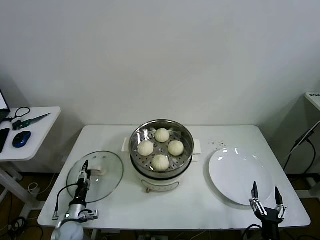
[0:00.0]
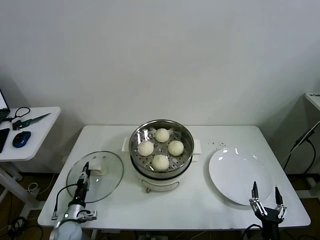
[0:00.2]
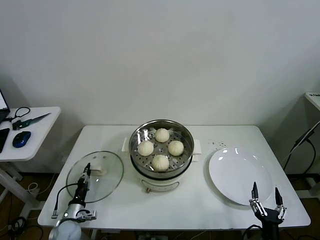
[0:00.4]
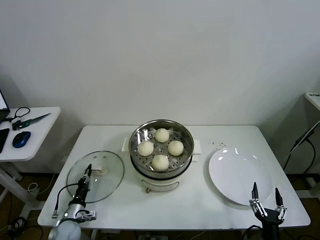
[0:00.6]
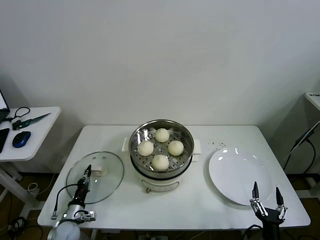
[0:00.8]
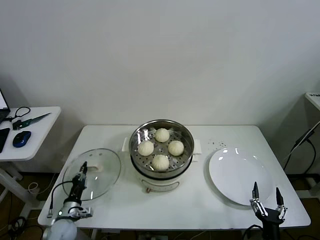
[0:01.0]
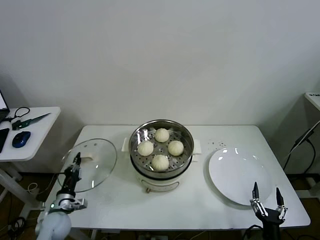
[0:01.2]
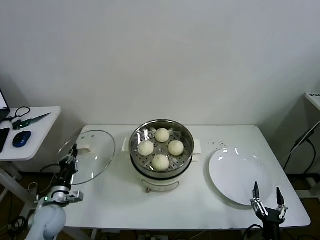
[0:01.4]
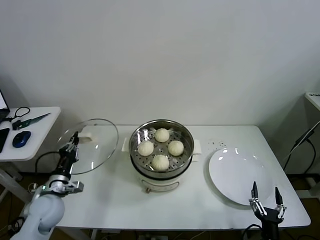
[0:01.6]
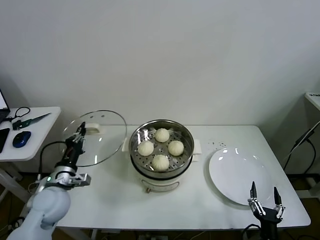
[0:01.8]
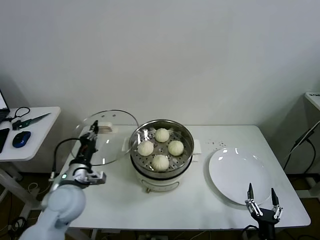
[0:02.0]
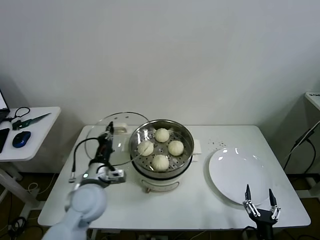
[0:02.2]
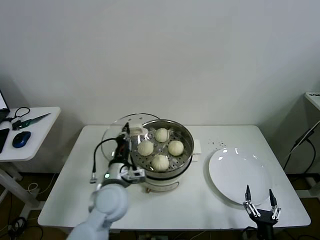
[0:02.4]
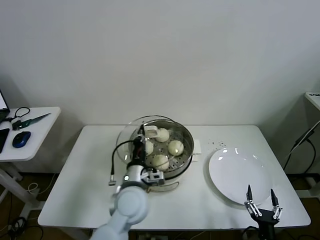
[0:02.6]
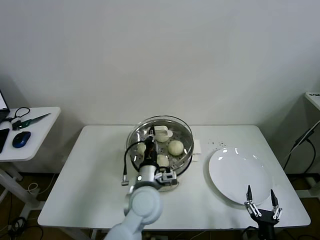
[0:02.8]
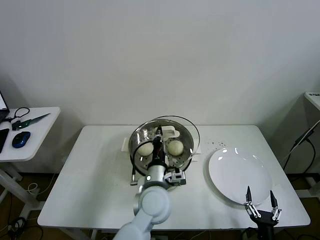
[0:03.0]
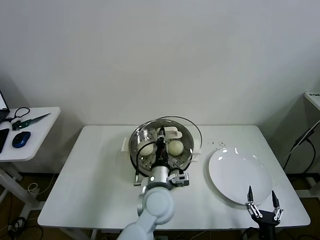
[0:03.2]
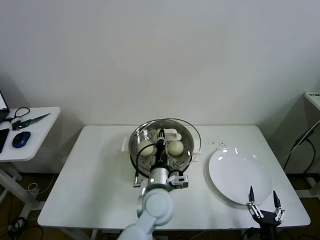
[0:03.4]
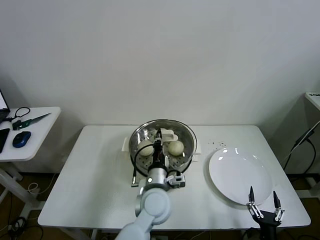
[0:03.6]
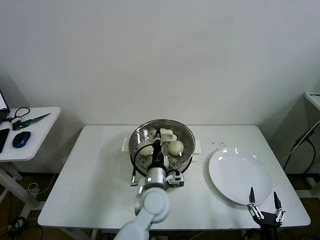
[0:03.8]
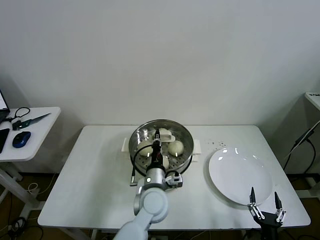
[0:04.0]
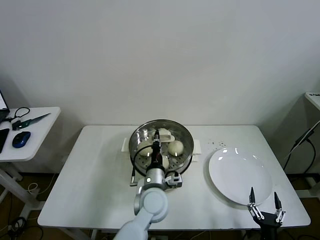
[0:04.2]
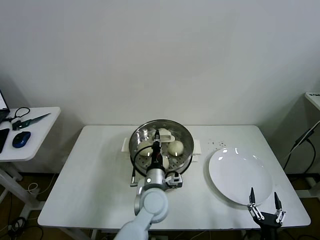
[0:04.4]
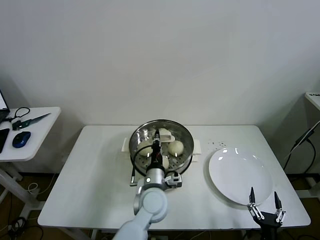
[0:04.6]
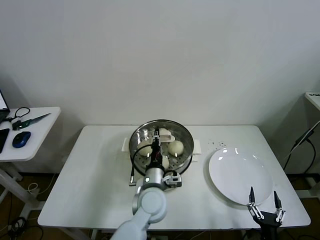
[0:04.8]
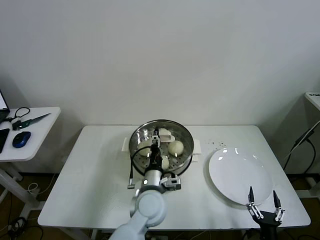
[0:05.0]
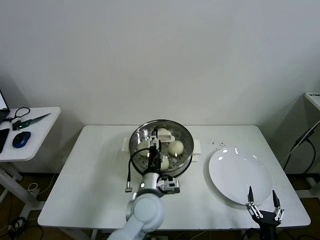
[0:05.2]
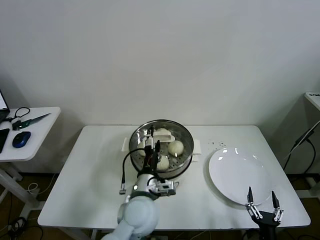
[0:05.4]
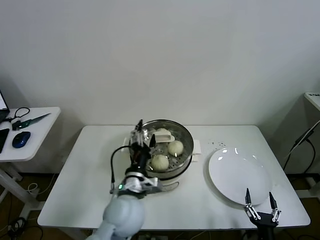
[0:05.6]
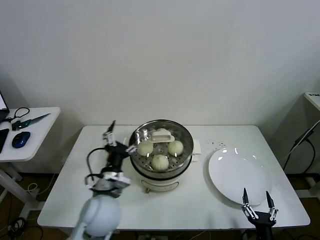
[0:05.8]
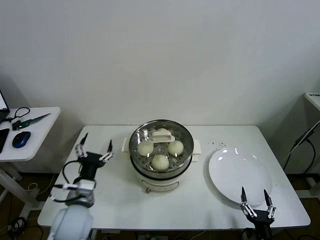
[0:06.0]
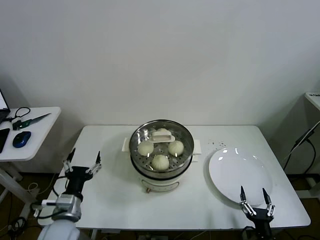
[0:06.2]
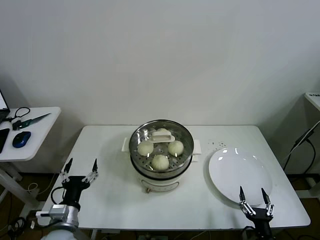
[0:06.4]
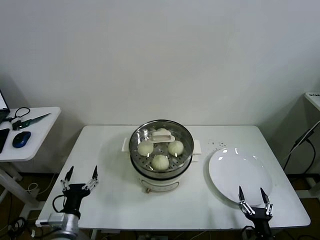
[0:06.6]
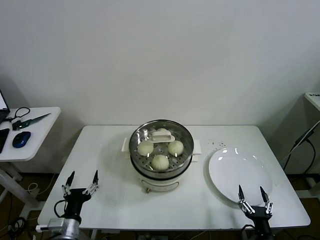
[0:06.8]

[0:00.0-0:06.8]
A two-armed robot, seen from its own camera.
Task of the whole recording: take steamed baozi put them in steamer then cover it.
Step, 0.8 to 5.4 s: Place the pot lid on the steamer with left gripper.
0.0 to 1.4 s: The left gripper moves upward, approximately 10 cm, and closes its fingers.
1.4 to 2.8 s: The left gripper shifts about 35 cm to the right and upward.
2.8 to 4.0 s: The left gripper changes place by roughly 5 cm.
4.0 to 5.4 s: The left gripper ends up roughly 5 cm from where it was, and opens its fingers.
5.4 to 6.8 s: The left gripper shifts approximately 25 cm to the left and backward.

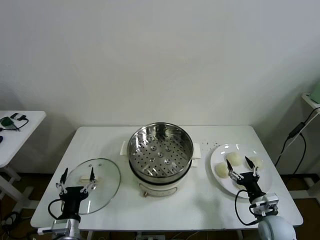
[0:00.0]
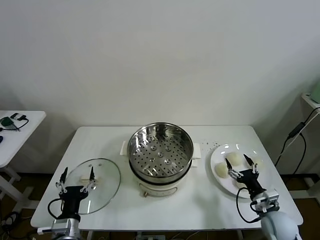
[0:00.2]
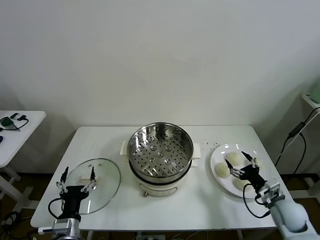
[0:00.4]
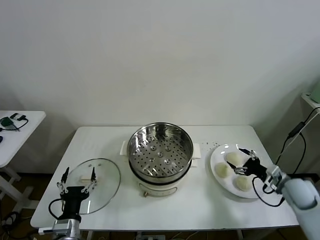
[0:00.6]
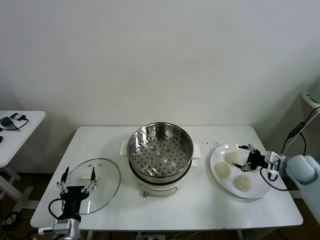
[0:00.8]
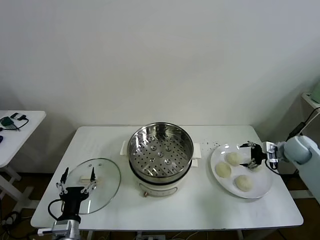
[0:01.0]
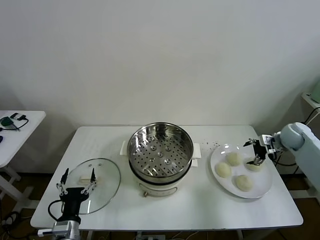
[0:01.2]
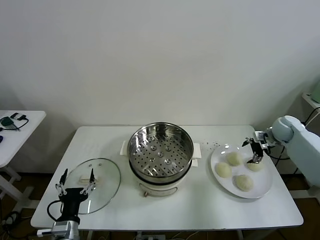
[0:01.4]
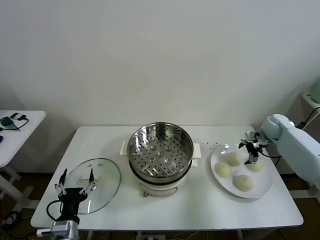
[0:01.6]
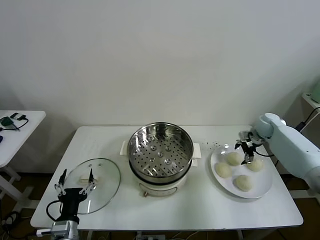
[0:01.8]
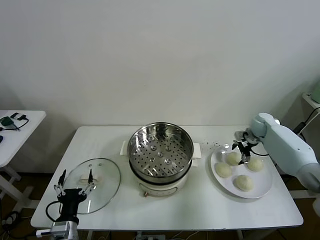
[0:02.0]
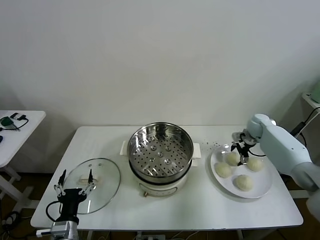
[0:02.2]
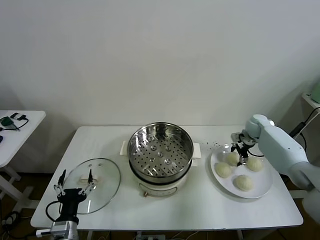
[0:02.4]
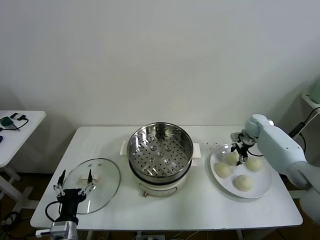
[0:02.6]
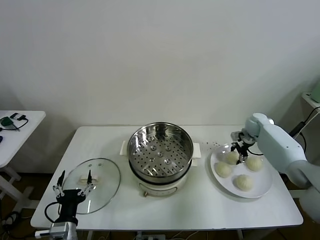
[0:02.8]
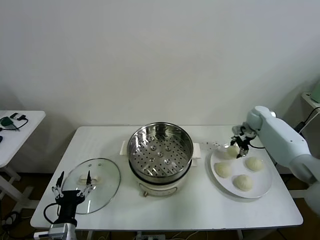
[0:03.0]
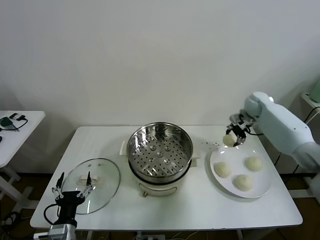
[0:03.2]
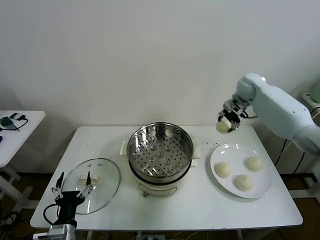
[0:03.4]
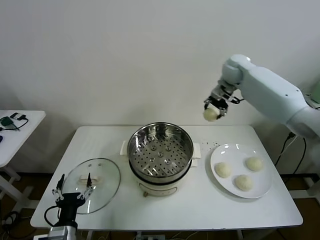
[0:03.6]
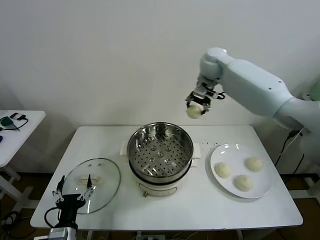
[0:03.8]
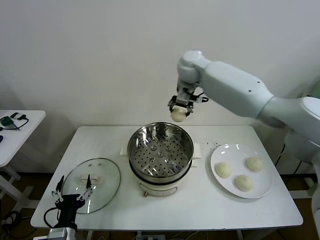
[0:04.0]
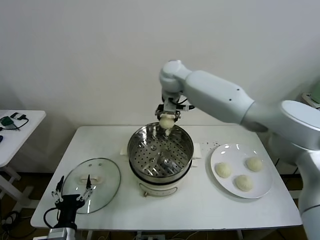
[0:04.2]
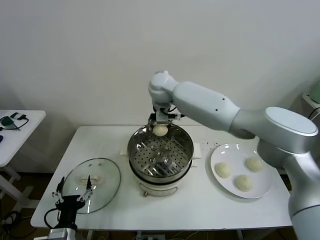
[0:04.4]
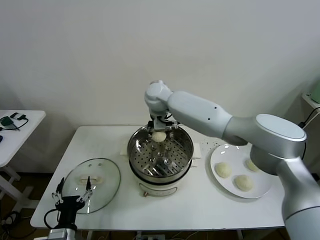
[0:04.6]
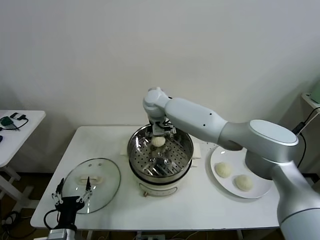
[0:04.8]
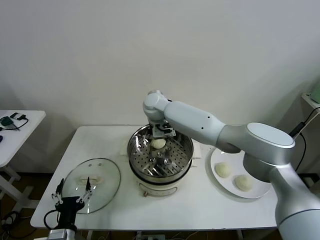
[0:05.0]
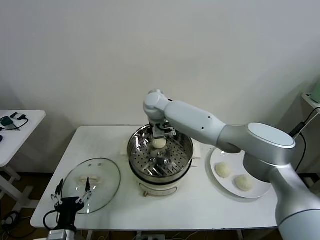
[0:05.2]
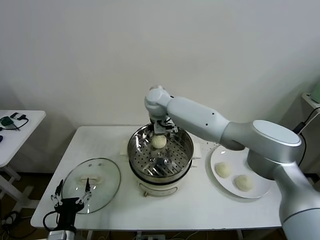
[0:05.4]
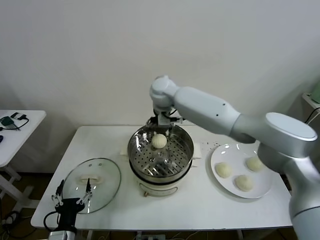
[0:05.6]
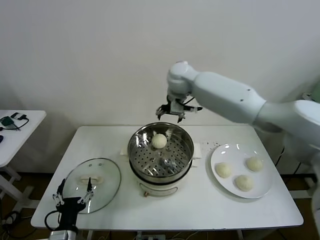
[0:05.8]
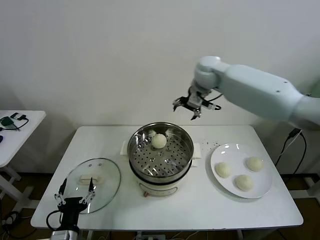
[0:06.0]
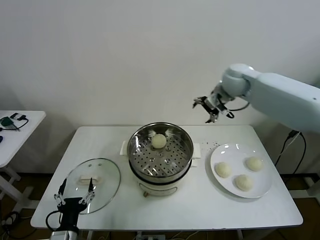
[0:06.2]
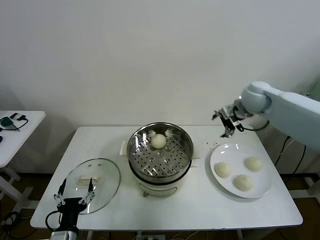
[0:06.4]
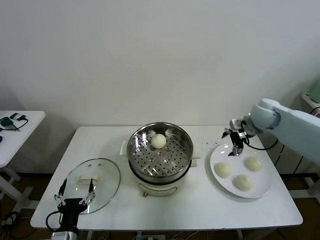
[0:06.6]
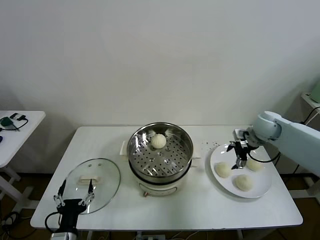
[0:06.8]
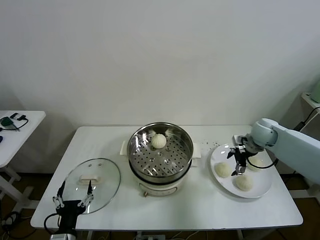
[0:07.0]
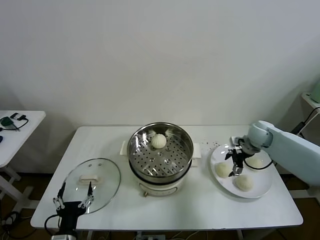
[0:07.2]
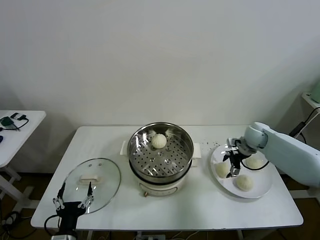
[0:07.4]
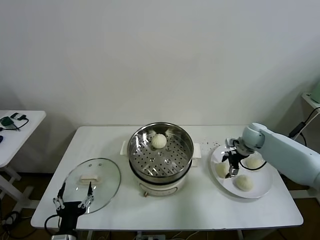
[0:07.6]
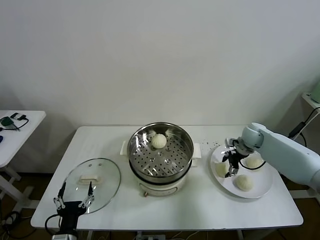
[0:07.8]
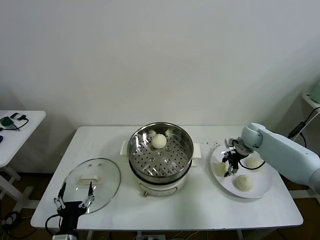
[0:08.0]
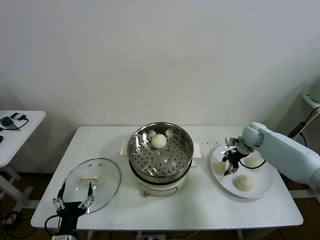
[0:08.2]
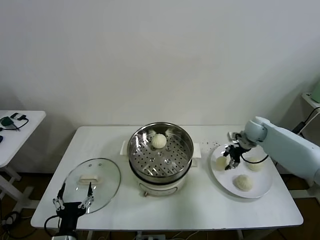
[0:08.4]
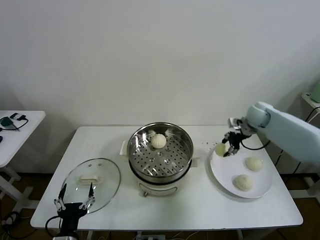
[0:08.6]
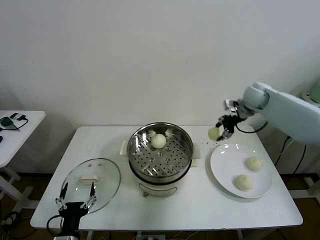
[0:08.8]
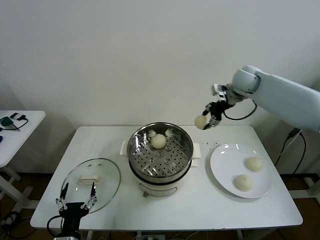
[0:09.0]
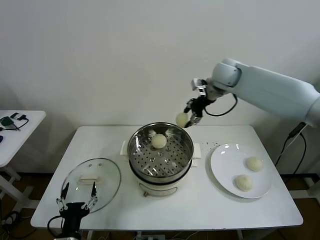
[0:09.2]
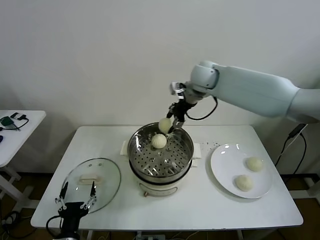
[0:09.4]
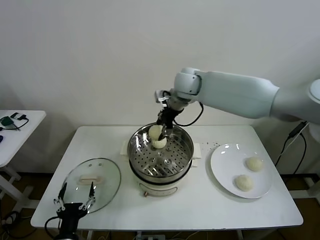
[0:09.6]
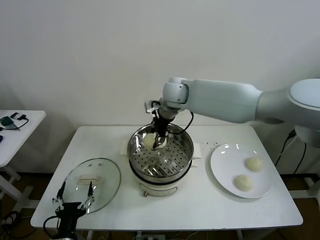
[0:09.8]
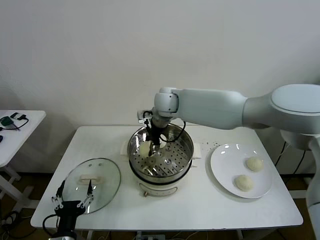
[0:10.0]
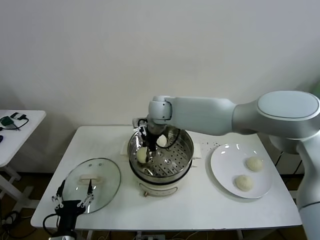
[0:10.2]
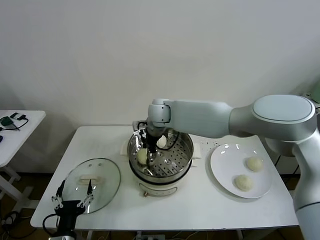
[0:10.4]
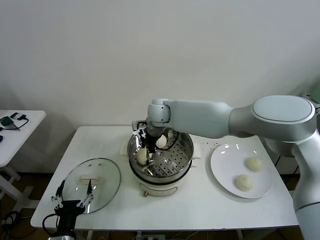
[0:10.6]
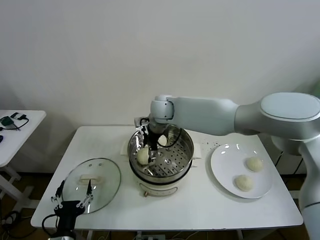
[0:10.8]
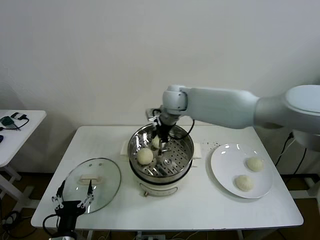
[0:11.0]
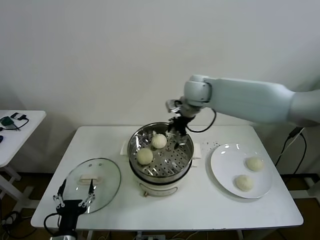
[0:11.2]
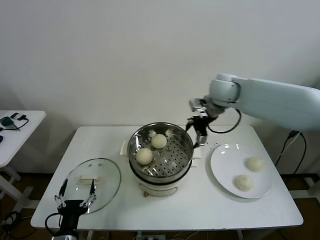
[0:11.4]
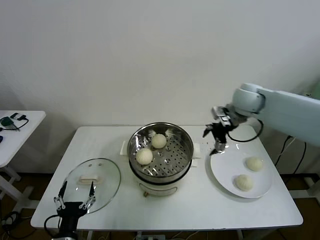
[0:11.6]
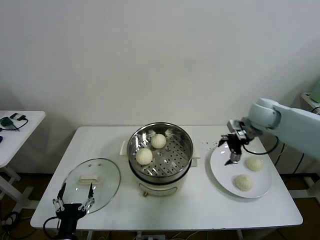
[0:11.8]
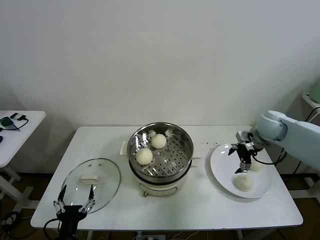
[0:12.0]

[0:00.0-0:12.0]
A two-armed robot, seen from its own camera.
Task of the whole recording: take steamed baozi put them in steamer then cover it.
Step, 0.0 to 2.8 s: Grasp the baozi in the plate with right gripper.
Step, 3.0 to 5.2 s: Place the baozi on the steamer with right gripper.
Step, 5.4 to 7.8 s: Grasp the baozi in the plate with right gripper.
Step, 8.0 to 10.6 s: Place the baozi on the steamer with right gripper.
1.6 to 3.0 s: The right gripper changes place by approximately 10 cm, and closes.
3.0 to 4.4 s: The right gripper moves to the left, roughly 40 cm.
4.4 to 6.0 s: The right gripper shifts roughly 20 cm to the right, and opens its fingers.
6.0 to 7.6 s: The right gripper travels downward and to the right by roughly 30 cm.
7.6 to 9.0 s: The right gripper shifts approximately 25 cm upward and to the left, and closes its fingers.
9.0 to 10.4 s: The right gripper travels to the left by approximately 25 cm, and opens.
10.4 to 12.0 s: The right gripper travels to the right by about 40 cm, and opens its fingers.

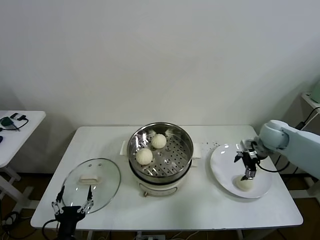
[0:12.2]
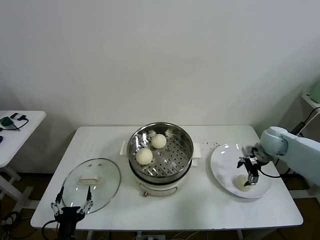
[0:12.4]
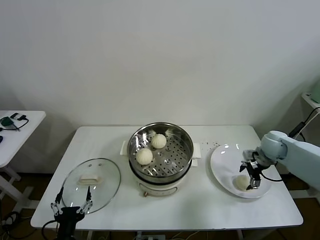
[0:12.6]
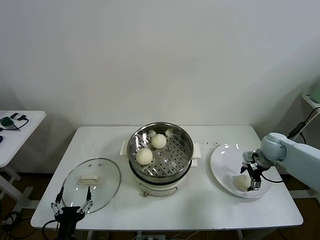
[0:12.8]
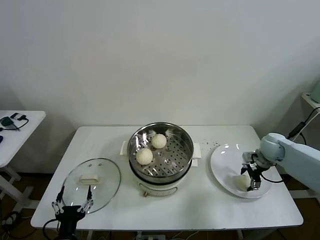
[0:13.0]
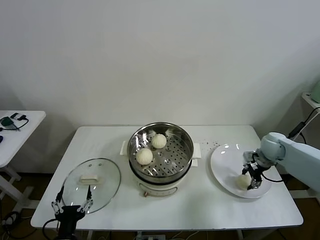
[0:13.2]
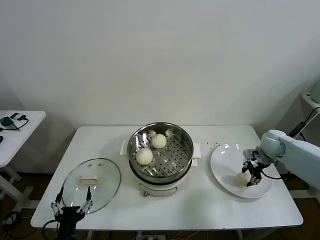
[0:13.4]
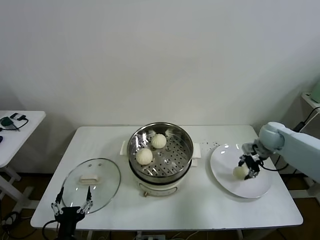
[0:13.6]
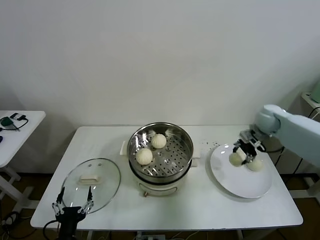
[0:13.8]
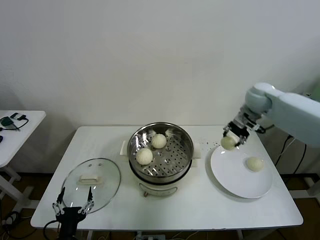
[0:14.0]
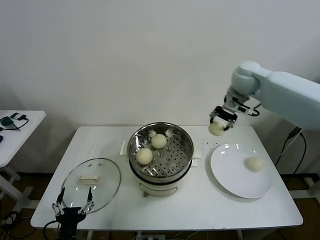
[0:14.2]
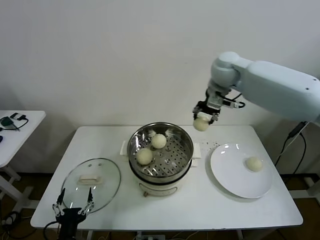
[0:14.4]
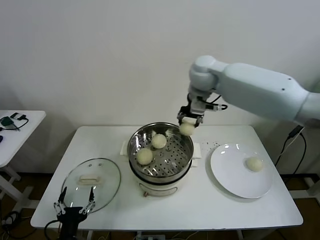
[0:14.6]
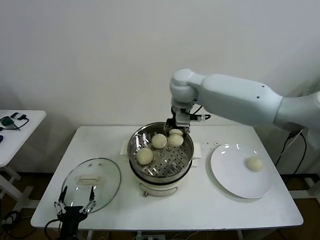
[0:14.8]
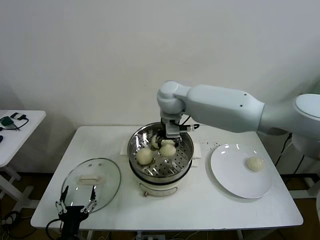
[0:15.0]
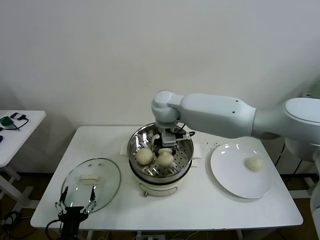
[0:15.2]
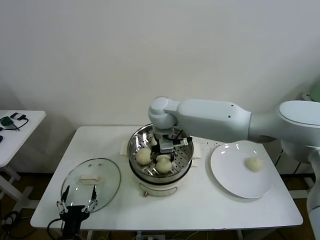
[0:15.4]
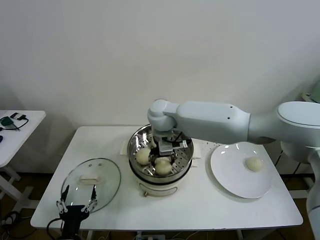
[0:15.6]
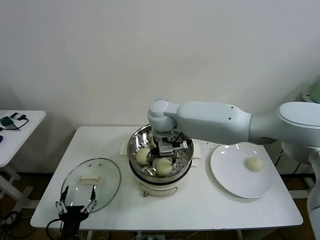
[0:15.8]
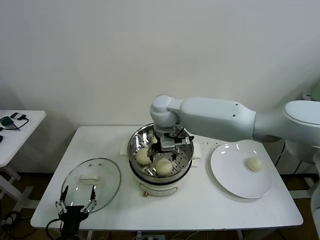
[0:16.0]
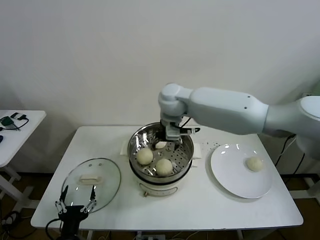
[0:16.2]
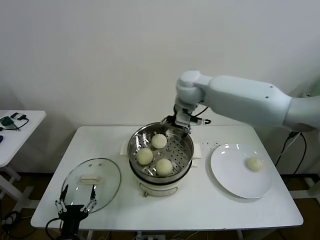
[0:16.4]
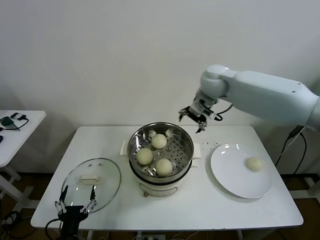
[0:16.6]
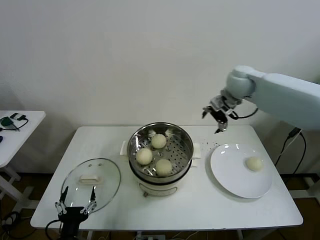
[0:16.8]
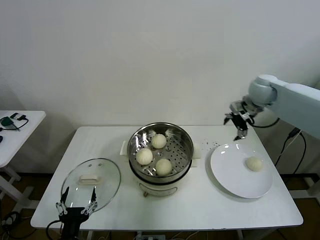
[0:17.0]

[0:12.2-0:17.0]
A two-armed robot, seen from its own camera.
Task of the whole recording: take steamed baozi put them in steamer then cover it.
Step, 13.4 to 15.6 s: Place the baozi on the steamer with right gripper.
12.2 to 13.8 s: The right gripper goes about 10 cm forward and upward, and closes its fingers.
13.8 to 15.4 s: The right gripper heads to the left, covering approximately 35 cm.
15.4 to 17.0 s: The right gripper heads to the right, covering approximately 35 cm, and opens its fingers.
